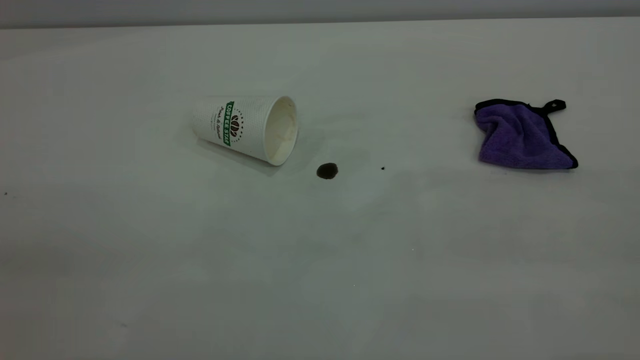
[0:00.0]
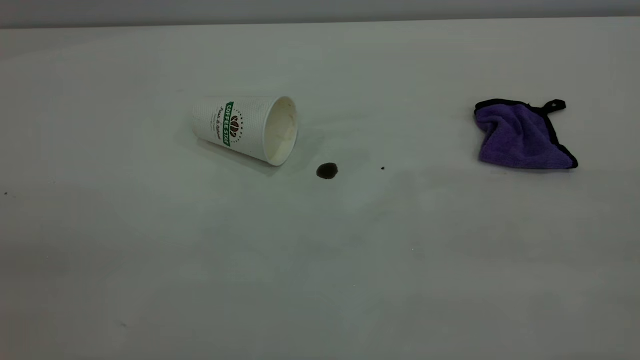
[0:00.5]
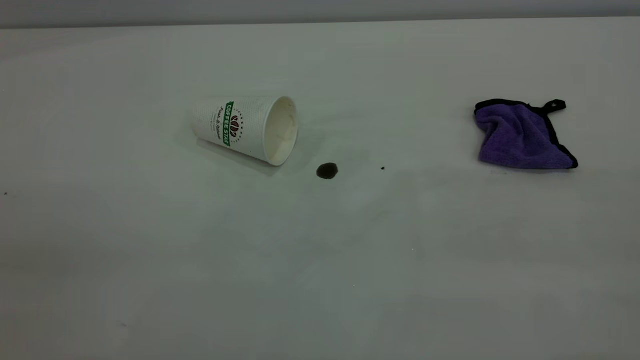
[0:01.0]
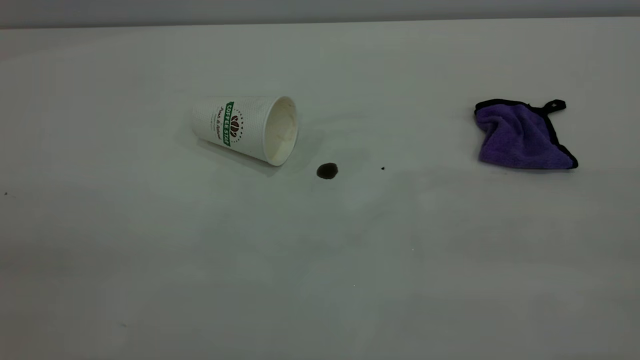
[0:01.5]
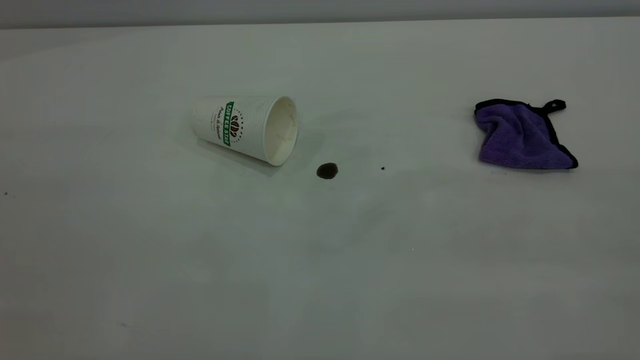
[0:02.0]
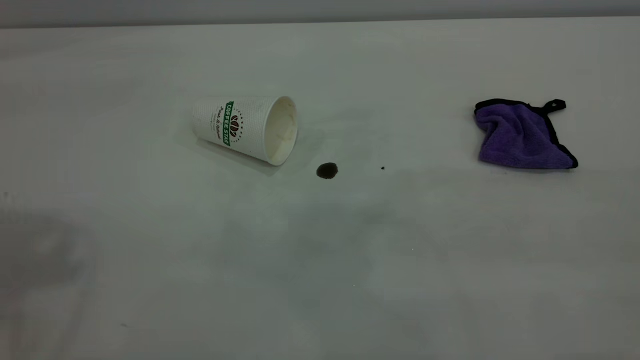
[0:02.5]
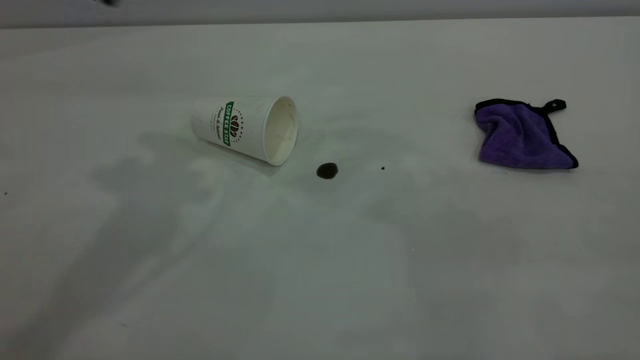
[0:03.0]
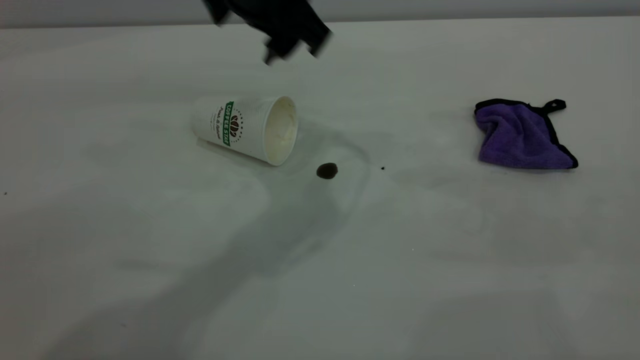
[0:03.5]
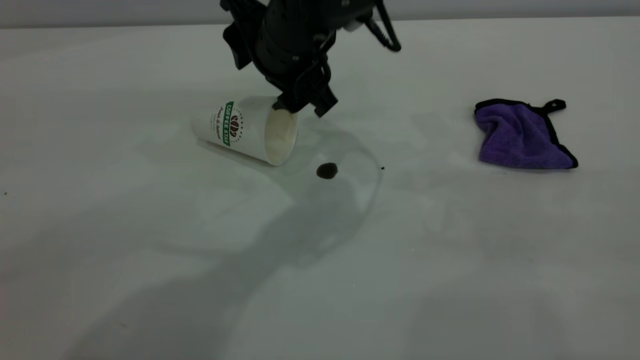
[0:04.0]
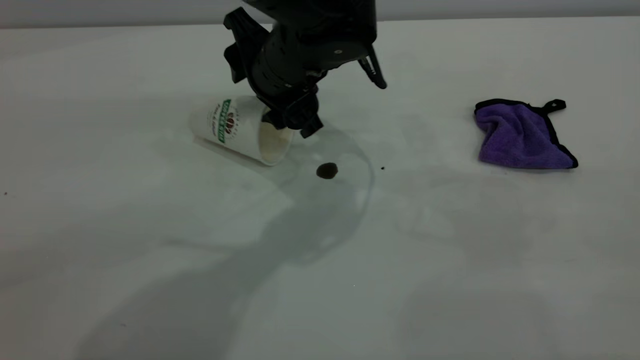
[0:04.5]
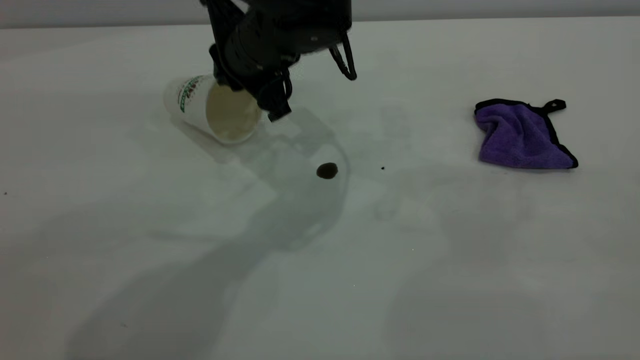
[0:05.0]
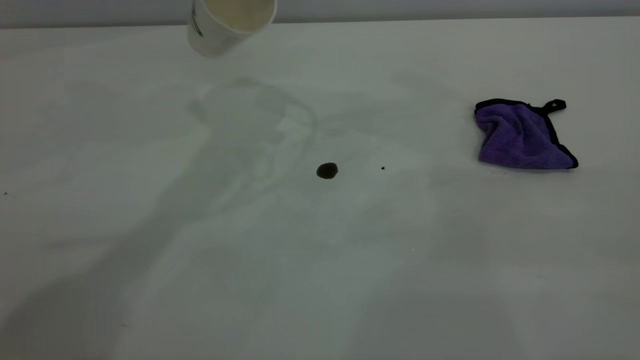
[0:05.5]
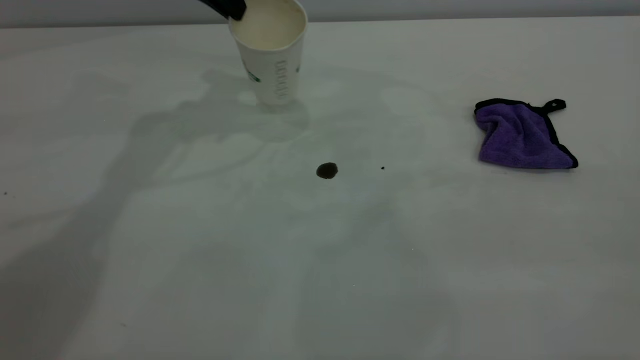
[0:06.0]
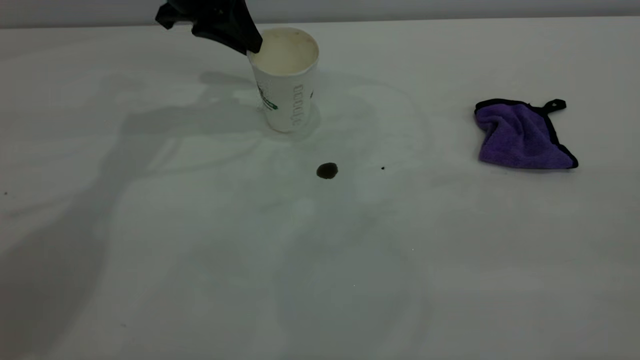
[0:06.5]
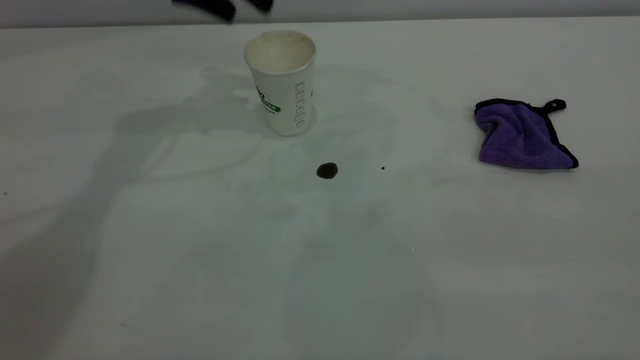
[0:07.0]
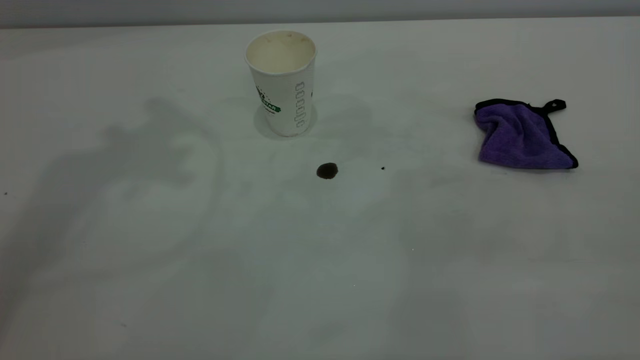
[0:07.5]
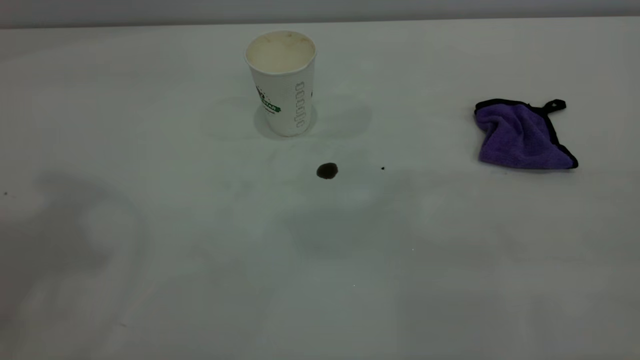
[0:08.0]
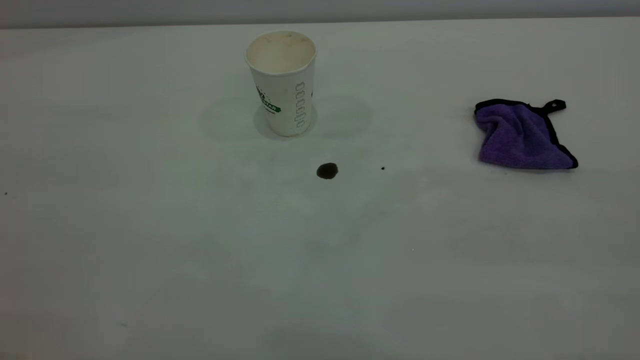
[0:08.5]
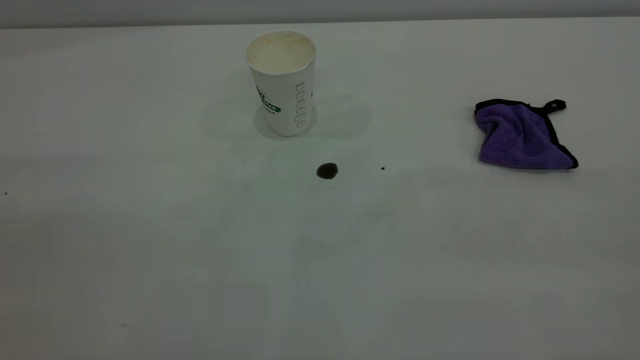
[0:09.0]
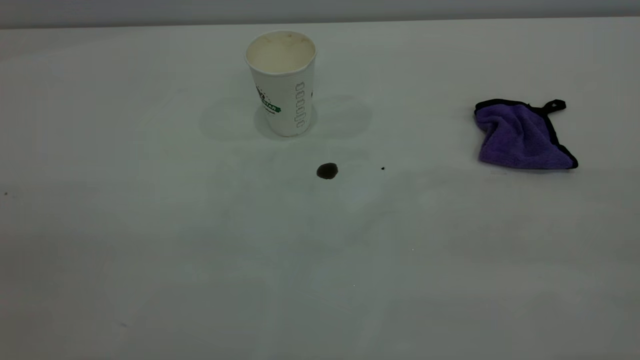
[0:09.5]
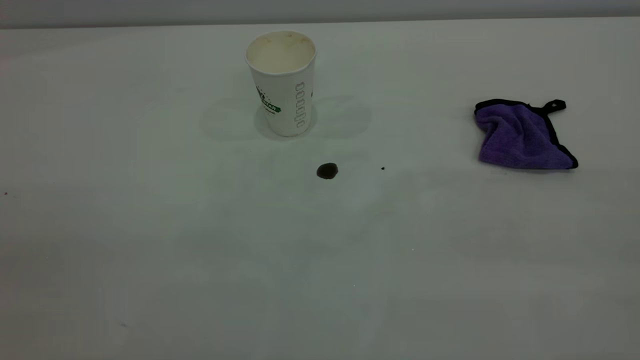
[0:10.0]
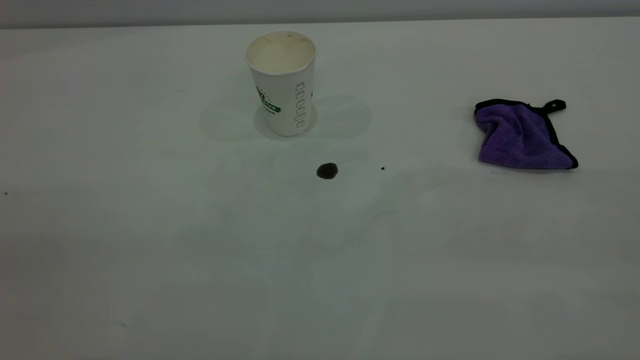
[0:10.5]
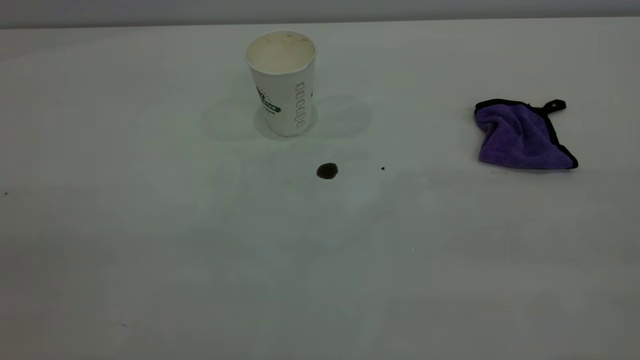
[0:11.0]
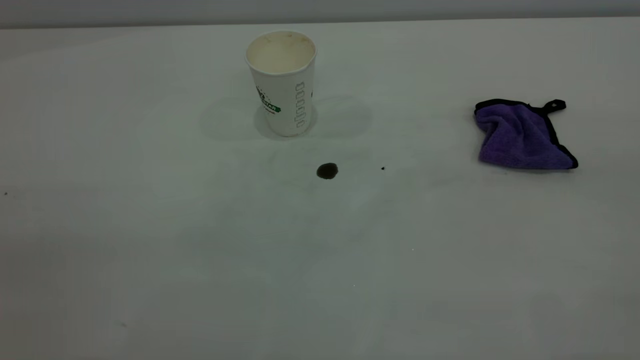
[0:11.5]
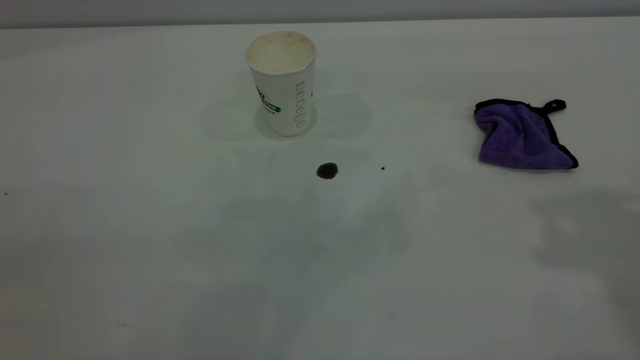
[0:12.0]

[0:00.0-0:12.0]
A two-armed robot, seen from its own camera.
Task of the whole recording: the left gripper pick up the fallen cup and place it upright, the right gripper grasp the purple rag and wipe the coffee stain on the table, the right gripper put the purple rag back in its original position.
Step, 0:00.0 to 0:06.5: Stand the paper cup upright.
0:02.0 to 0:04.0: The left gripper moves forward, to the right and downward, some 50 cm, and opens.
0:04.0 to 0:06.0: The left gripper heads to the left, forward and upward, covering some 20 cm, and closes.
0:06.0 to 0:08.0: The left gripper shifts approximately 35 cm backward, upward and to the left, and opens, then closes once more.

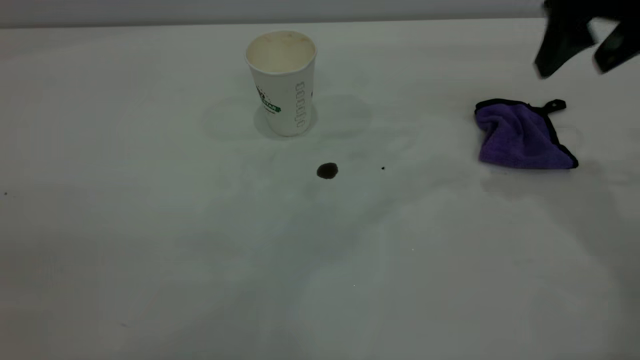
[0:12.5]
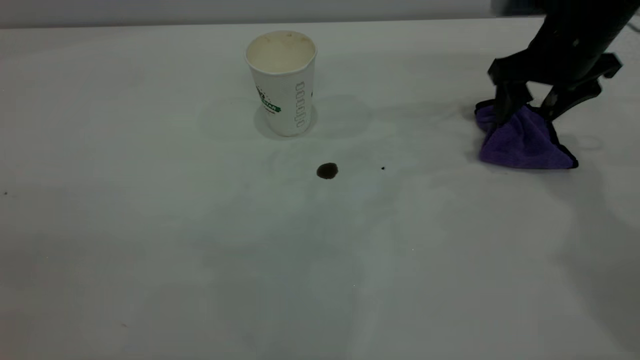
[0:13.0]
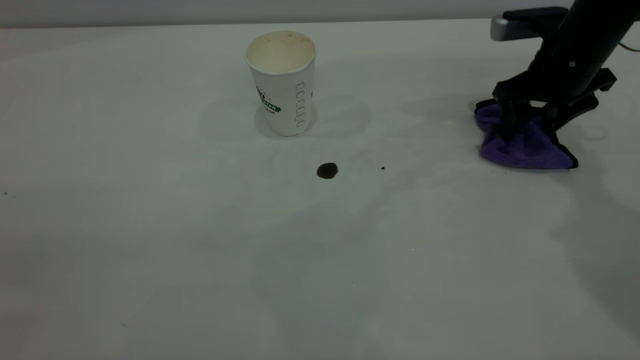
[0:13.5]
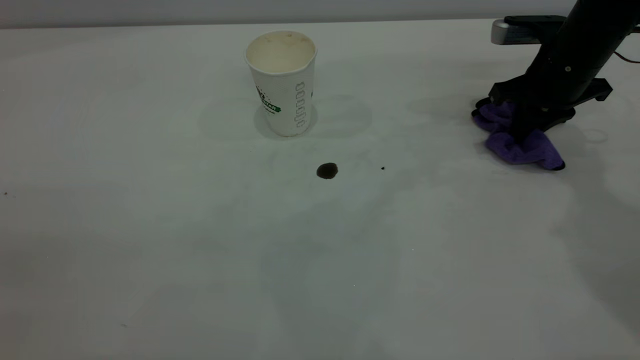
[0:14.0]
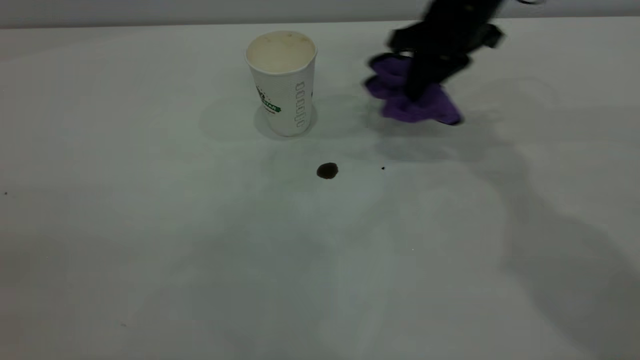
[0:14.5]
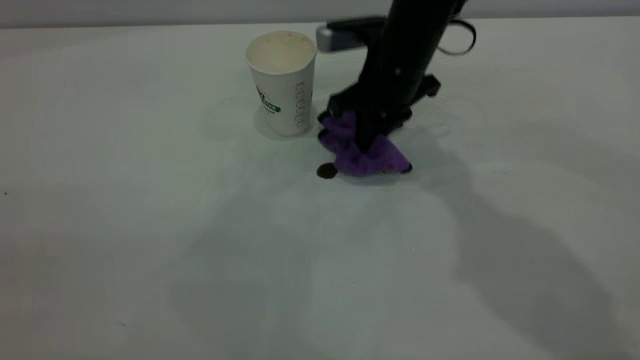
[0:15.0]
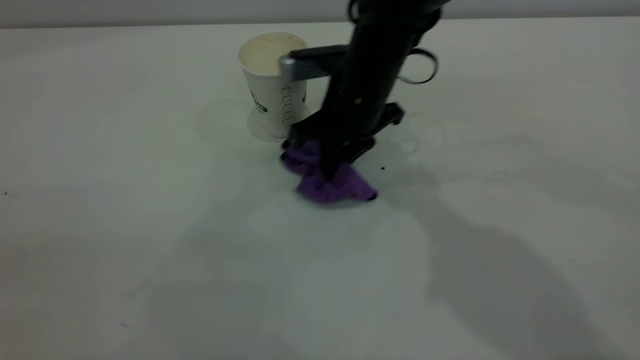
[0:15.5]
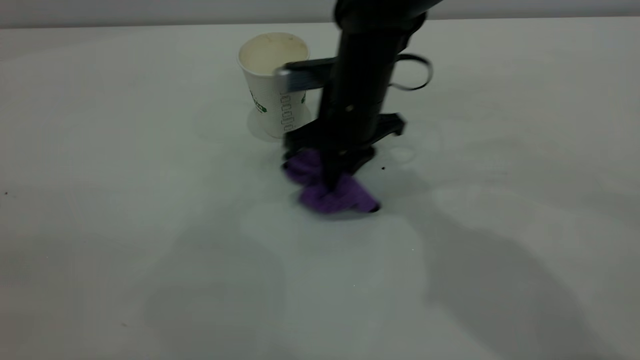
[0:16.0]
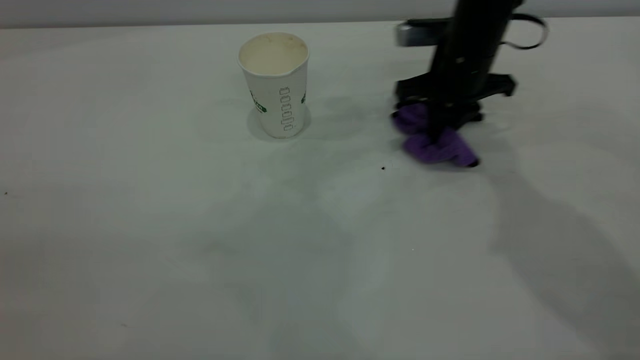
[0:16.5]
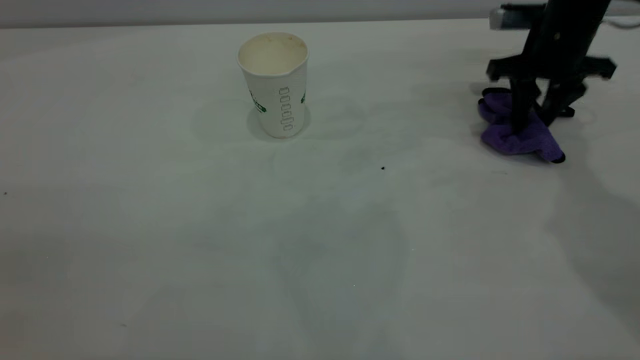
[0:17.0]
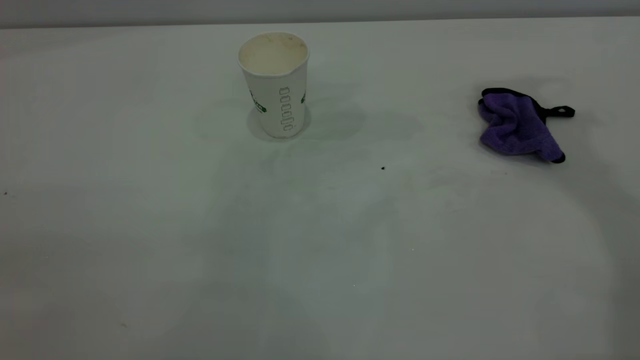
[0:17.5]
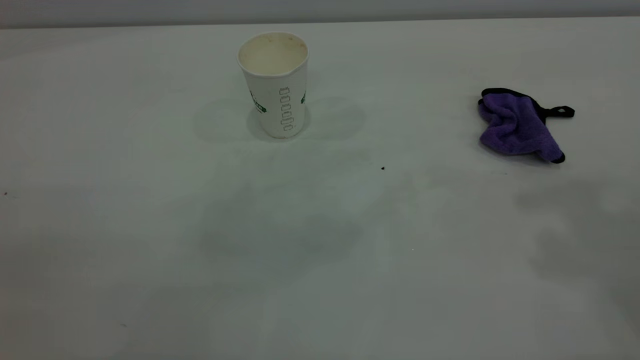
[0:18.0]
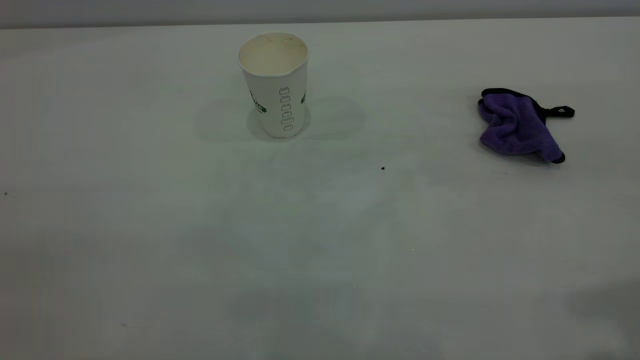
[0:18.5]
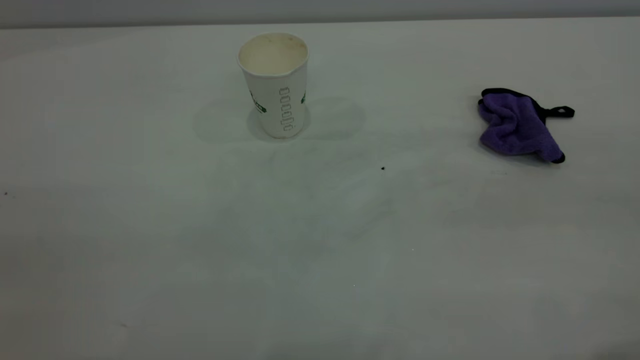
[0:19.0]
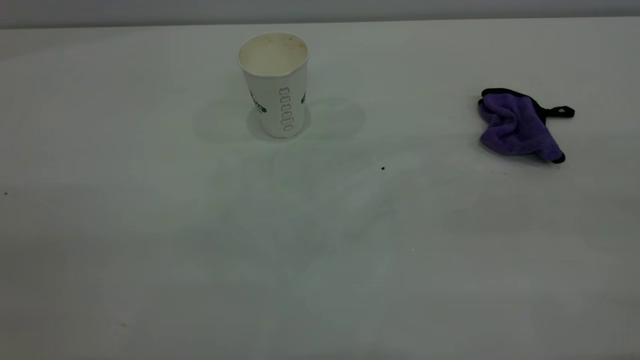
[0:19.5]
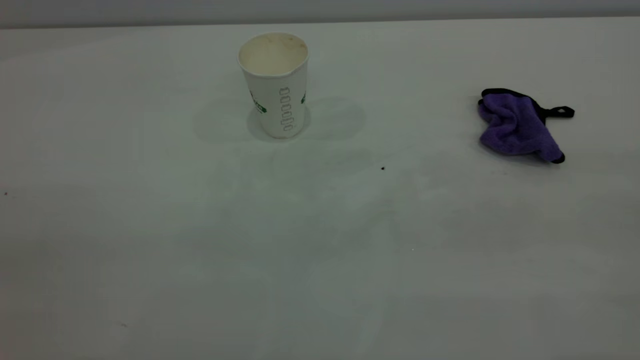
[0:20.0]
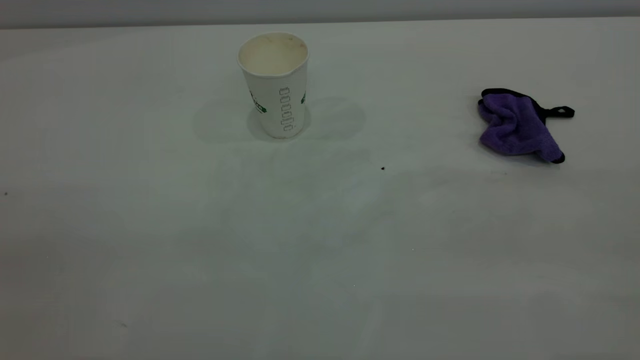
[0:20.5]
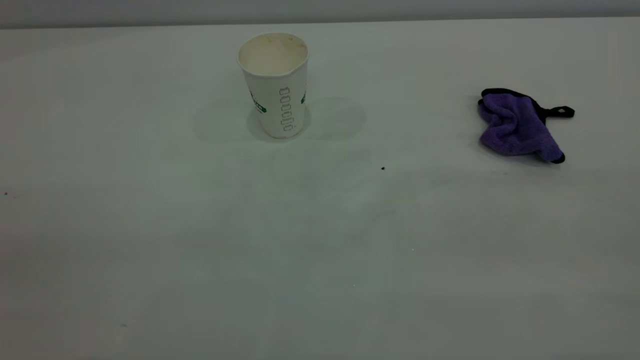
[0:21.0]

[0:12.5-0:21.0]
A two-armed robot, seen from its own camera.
Task of the whole recording: the left gripper pick up the fallen cup and place it upright, the right gripper grasp the purple rag and wipe the coffee stain on the table, the right gripper put the purple rag back in its original position.
Step, 0:12.5 to 0:17.0: Wipe the stains off the table with a rag.
0:12.5 to 0:14.5: The right gripper shifts roughly 15 cm to the left, forward and downward, and closes up.
0:14.5 to 0:16.5: The right gripper is displaced downward by about 5 cm, and travels to the left and back again, approximately 10 cm each way.
0:16.5 to 0:19.0: The right gripper heads backward and upward, covering roughly 40 cm, and opens.
